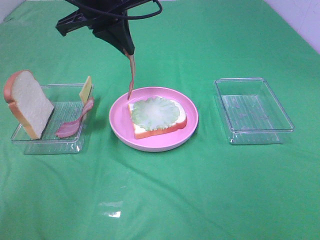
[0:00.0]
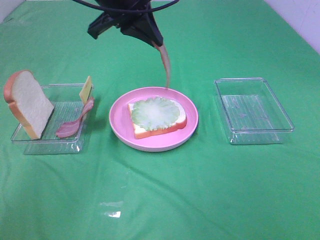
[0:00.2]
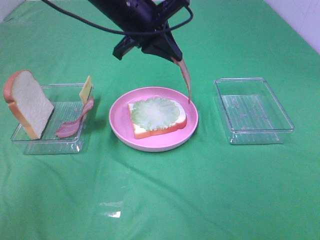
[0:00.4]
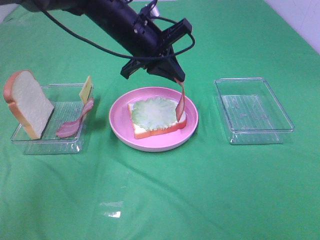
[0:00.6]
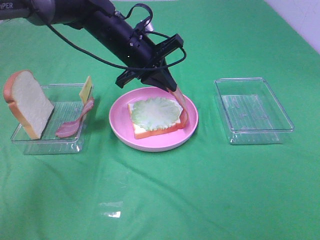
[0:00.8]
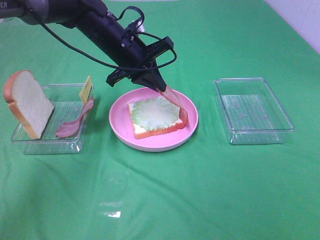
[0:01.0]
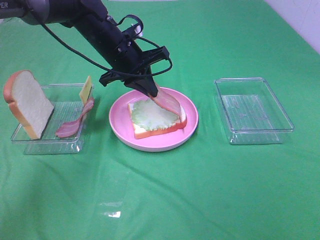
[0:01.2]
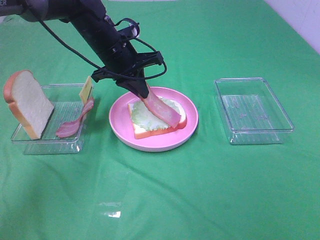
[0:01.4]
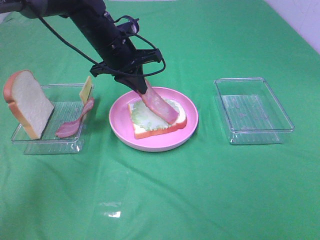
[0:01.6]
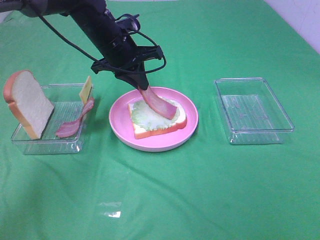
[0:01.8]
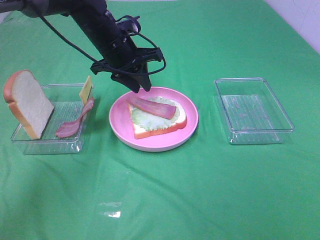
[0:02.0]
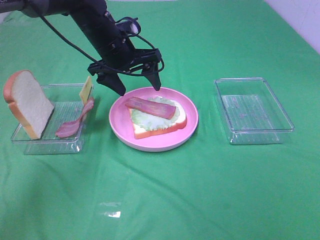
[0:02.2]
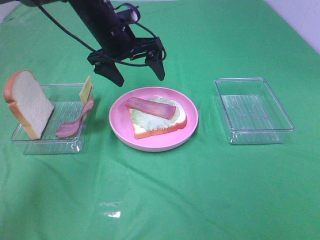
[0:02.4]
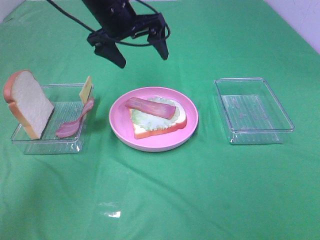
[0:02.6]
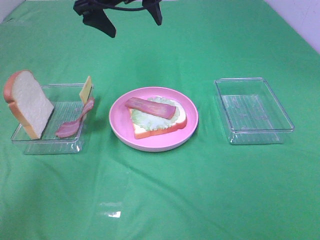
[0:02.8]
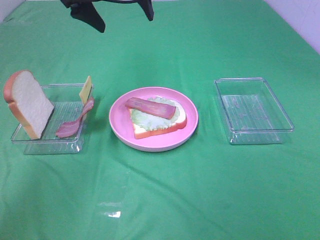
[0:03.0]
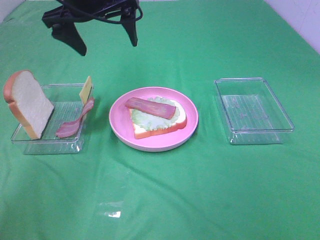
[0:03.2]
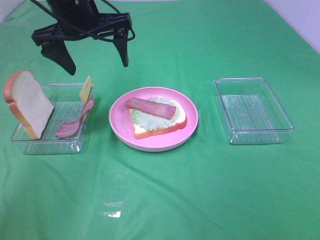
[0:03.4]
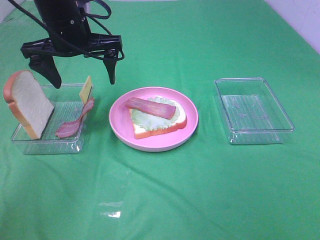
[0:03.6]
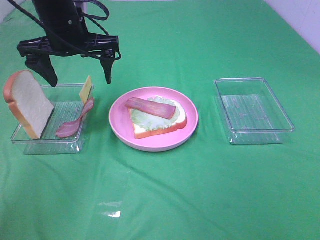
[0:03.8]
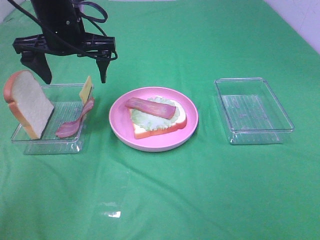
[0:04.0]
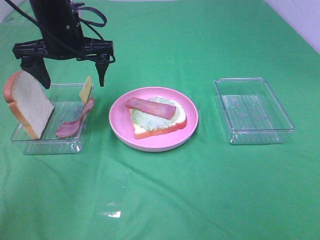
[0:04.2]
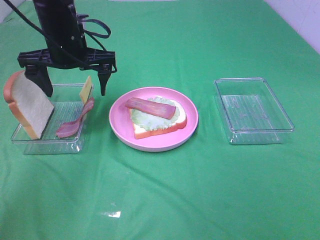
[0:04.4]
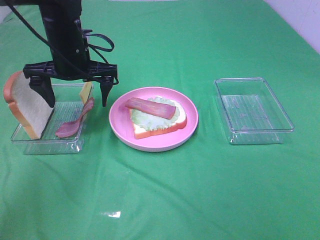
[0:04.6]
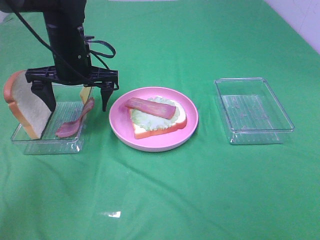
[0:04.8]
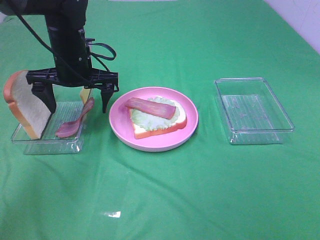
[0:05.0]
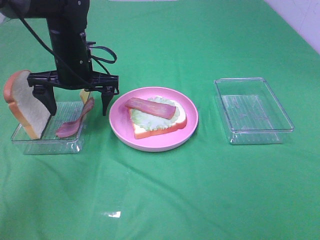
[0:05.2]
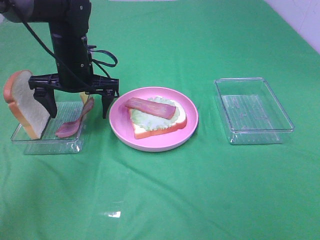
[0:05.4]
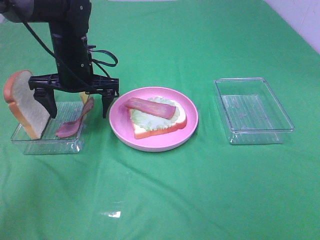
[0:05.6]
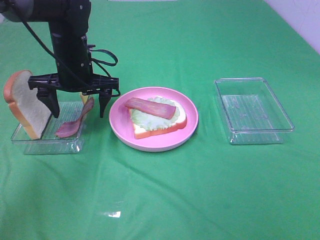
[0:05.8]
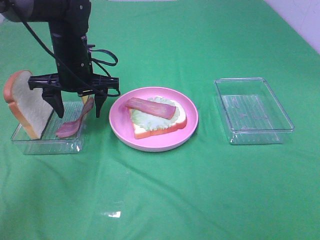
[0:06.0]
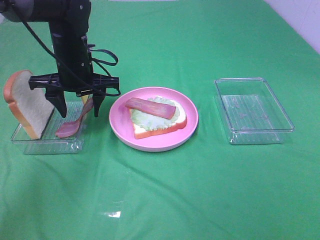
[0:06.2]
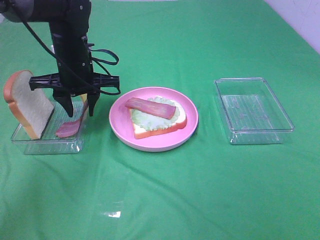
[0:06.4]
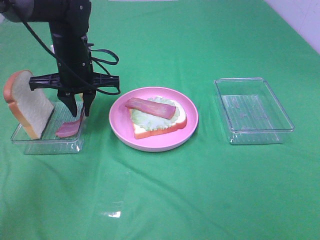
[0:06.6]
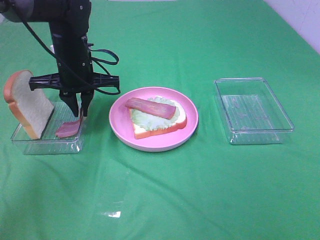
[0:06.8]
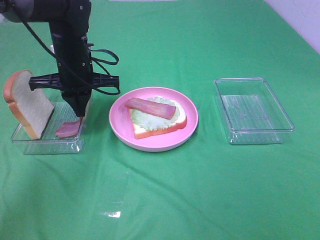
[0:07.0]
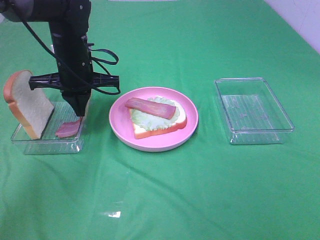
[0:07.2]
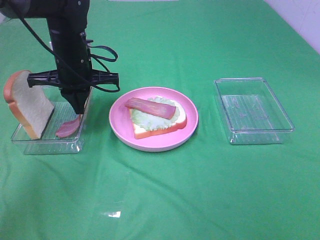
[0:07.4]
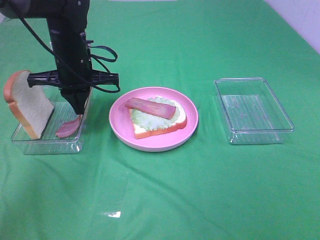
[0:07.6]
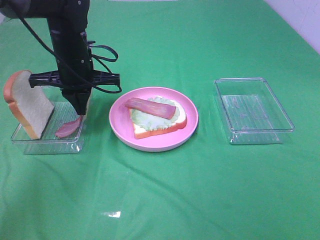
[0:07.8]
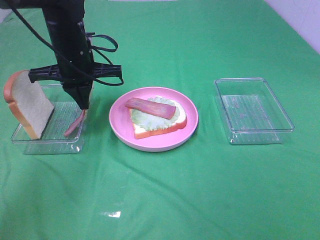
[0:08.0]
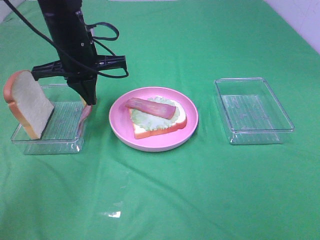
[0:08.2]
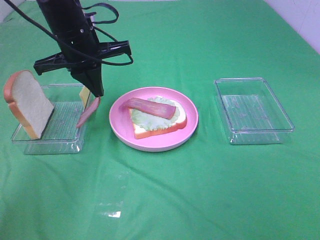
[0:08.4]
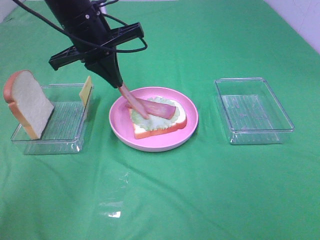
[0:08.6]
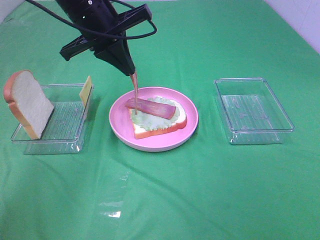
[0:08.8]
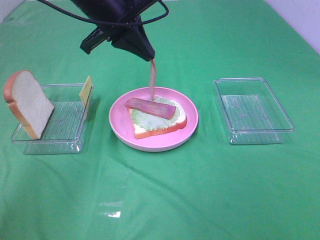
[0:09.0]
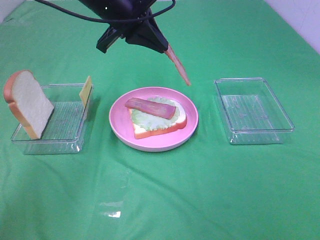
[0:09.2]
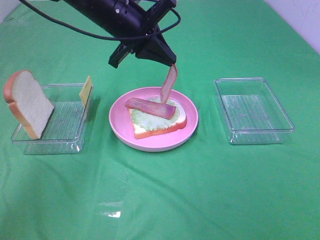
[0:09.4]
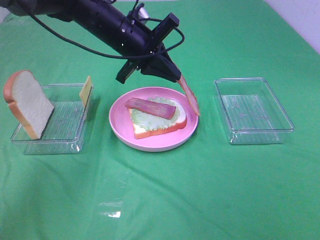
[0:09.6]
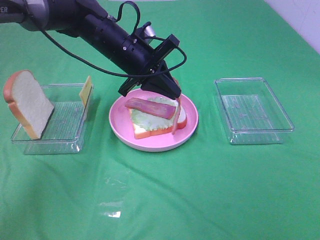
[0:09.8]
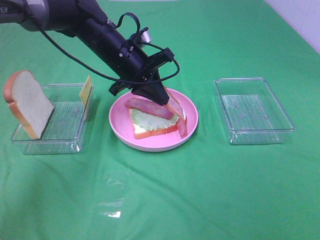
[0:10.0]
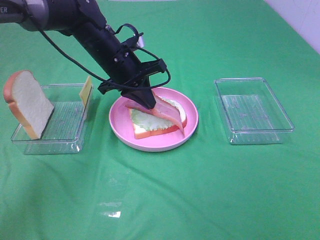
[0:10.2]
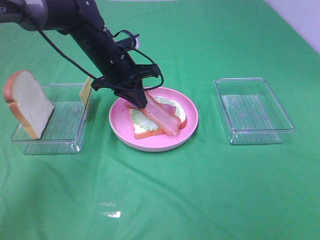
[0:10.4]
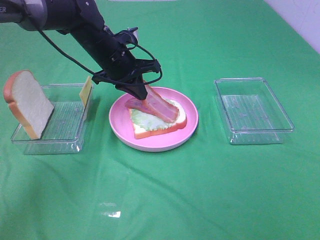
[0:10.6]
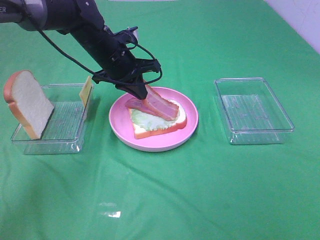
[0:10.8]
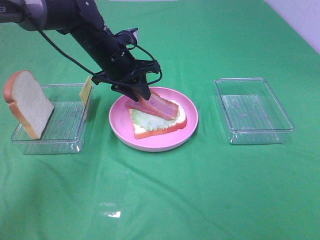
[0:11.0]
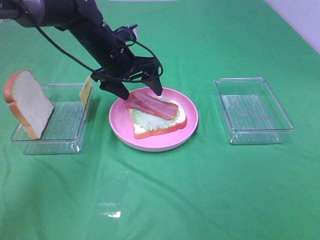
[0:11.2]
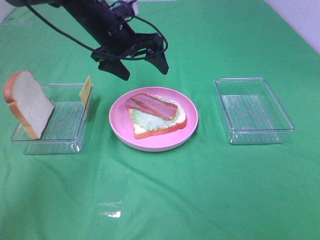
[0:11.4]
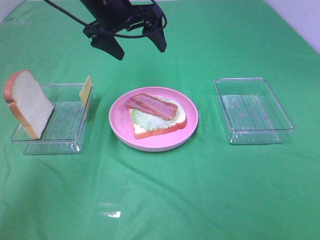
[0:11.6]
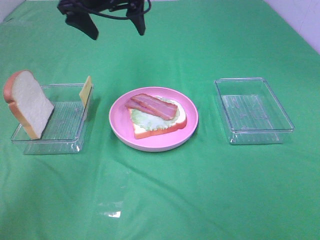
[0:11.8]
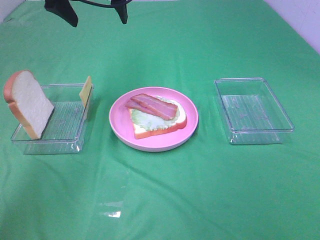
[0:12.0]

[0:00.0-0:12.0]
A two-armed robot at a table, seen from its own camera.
Task of the whole recording: Make sandwiches.
Step, 0:00.0 to 0:02.0: Left hand:place bacon on lettuce slice.
Step, 0:02.2 to 0:07.4: Left hand:grab the bacon.
Step, 0:07.6 to 0:11.2: Left hand:place bacon on bacon.
0:00.0 to 0:01.6: The left gripper is displaced downward and forward by roughly 15 cm.
0:01.6 to 0:03.0: The left gripper heads upward, covering about 15 cm, and opens.
0:03.0 to 0:04.4: The left gripper goes approximately 10 cm downward.
0:04.4 to 0:06.0: The left gripper travels downward by some 5 cm.
0:06.0 to 0:07.6: The left gripper closes its fingers.
0:07.6 to 0:09.0: The left gripper is displaced upward and to the right by about 10 cm.
0:09.0 to 0:10.4: The left gripper is displaced downward by roughly 10 cm.
0:10.4 to 0:12.0: The left gripper goes approximately 15 cm upward, and opens.

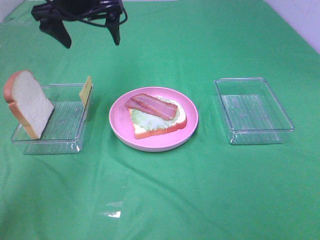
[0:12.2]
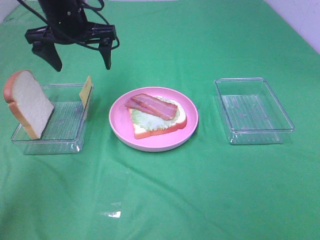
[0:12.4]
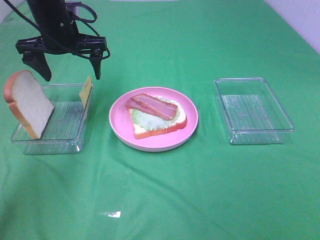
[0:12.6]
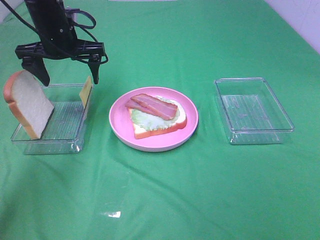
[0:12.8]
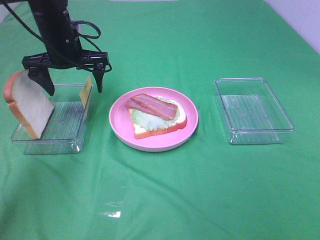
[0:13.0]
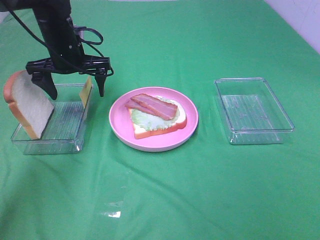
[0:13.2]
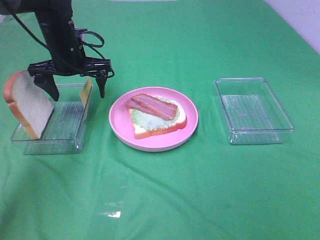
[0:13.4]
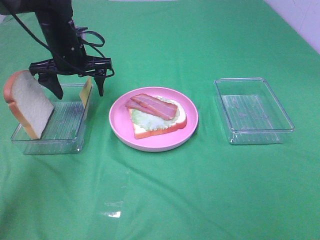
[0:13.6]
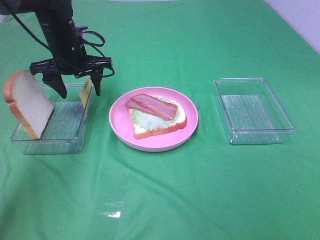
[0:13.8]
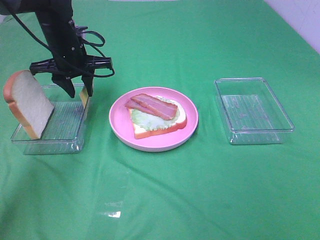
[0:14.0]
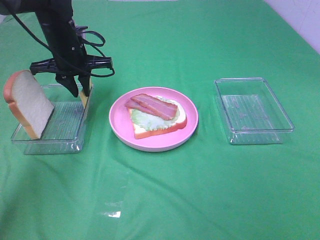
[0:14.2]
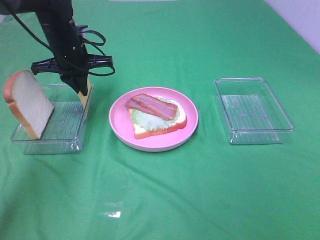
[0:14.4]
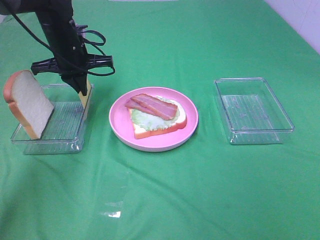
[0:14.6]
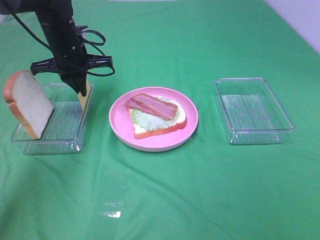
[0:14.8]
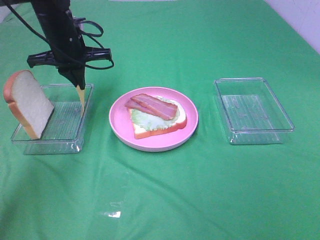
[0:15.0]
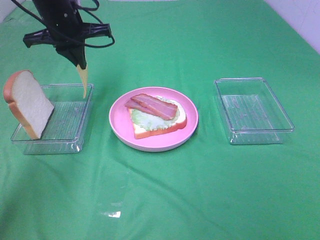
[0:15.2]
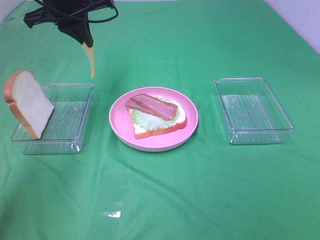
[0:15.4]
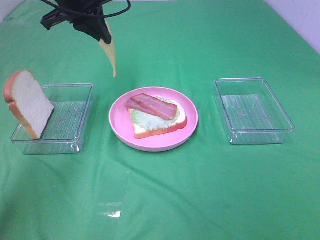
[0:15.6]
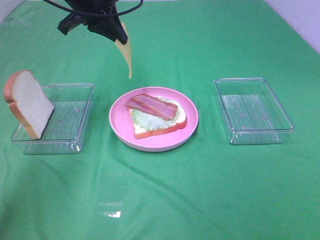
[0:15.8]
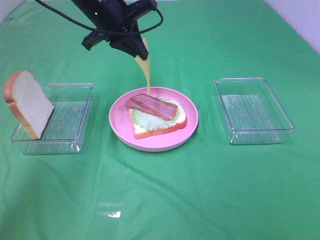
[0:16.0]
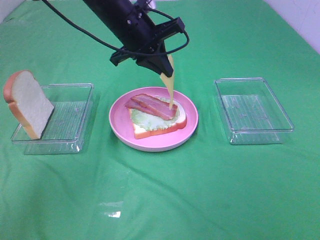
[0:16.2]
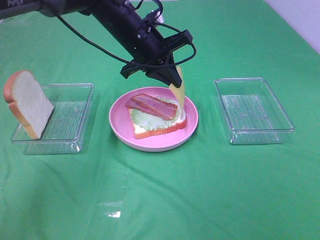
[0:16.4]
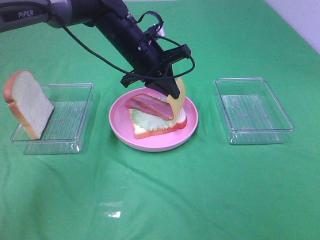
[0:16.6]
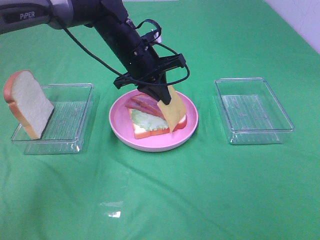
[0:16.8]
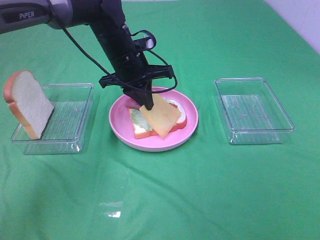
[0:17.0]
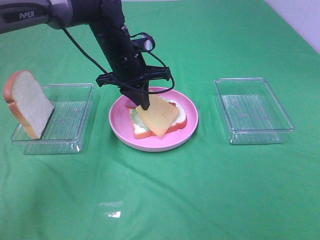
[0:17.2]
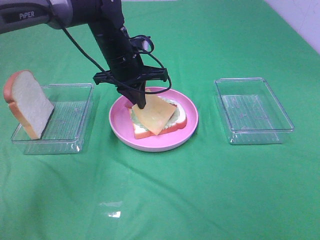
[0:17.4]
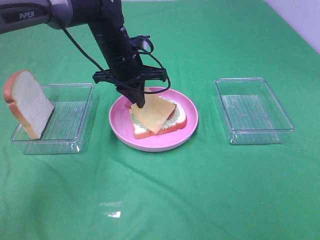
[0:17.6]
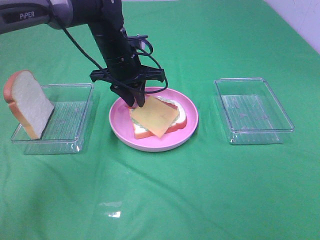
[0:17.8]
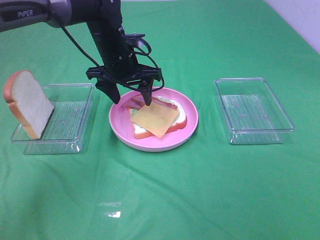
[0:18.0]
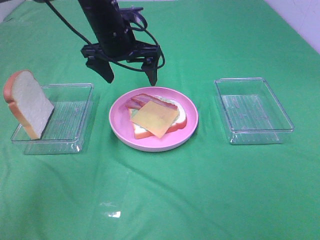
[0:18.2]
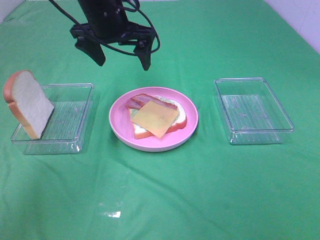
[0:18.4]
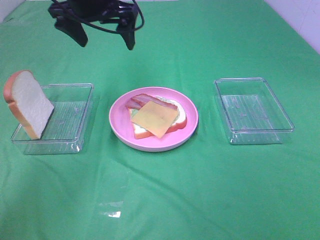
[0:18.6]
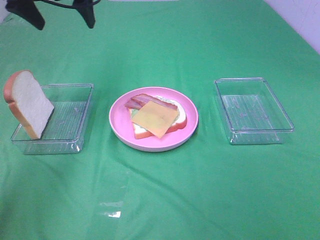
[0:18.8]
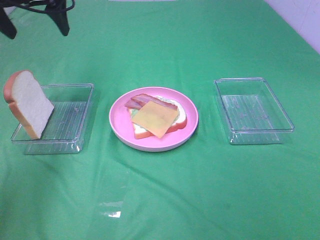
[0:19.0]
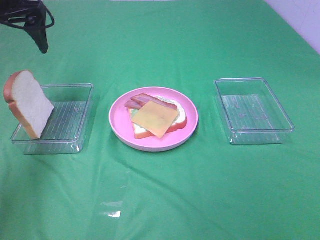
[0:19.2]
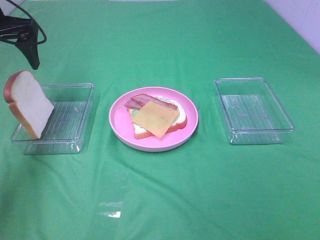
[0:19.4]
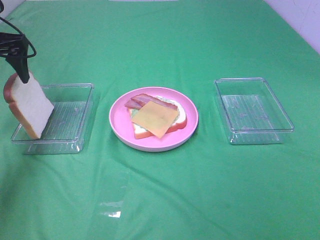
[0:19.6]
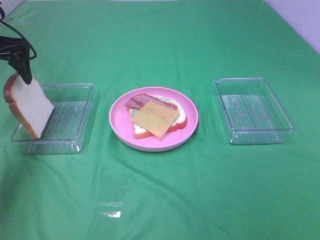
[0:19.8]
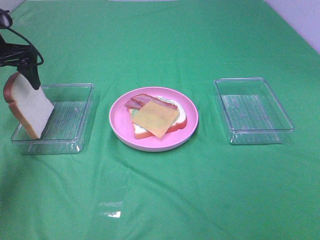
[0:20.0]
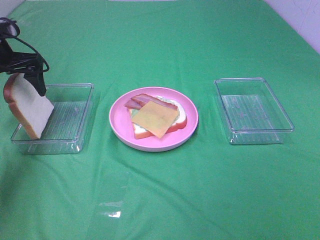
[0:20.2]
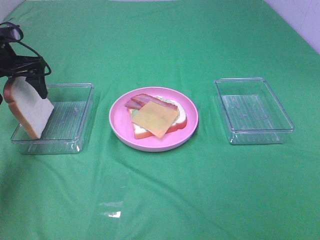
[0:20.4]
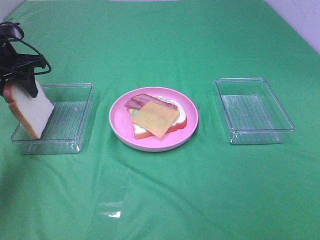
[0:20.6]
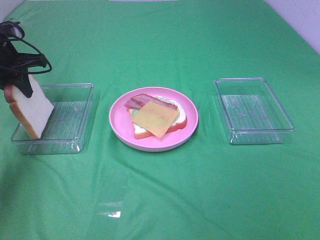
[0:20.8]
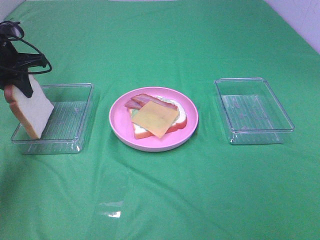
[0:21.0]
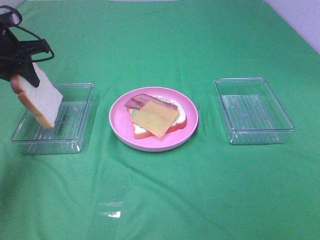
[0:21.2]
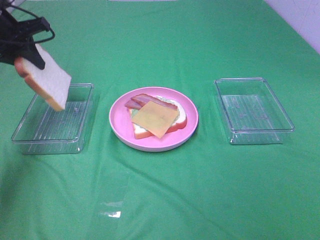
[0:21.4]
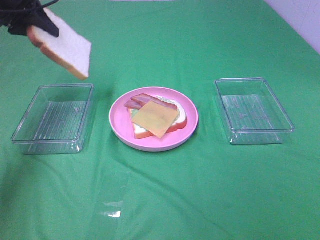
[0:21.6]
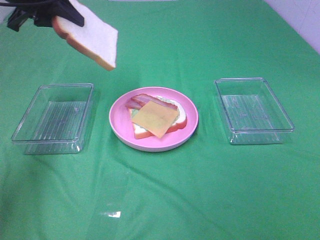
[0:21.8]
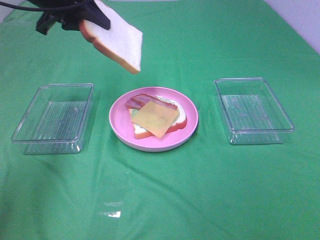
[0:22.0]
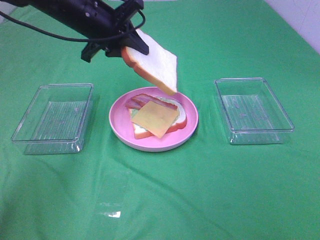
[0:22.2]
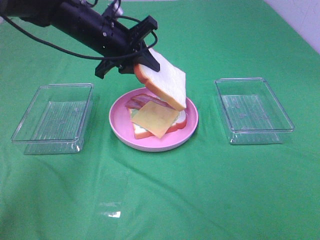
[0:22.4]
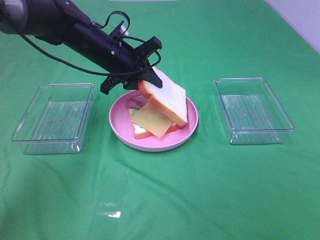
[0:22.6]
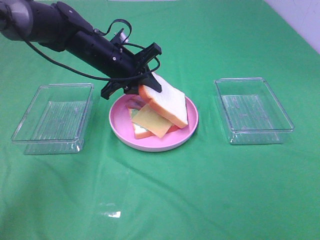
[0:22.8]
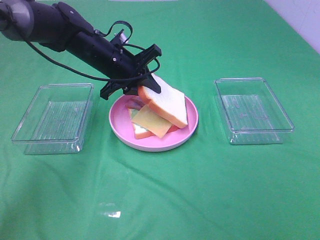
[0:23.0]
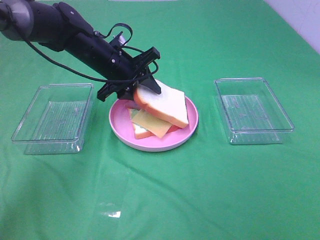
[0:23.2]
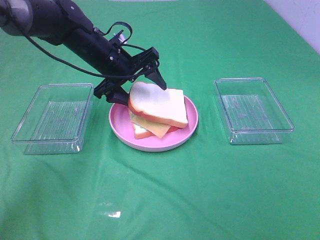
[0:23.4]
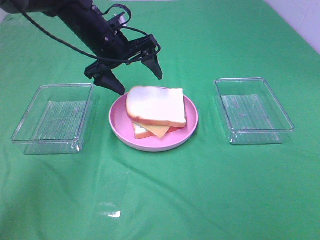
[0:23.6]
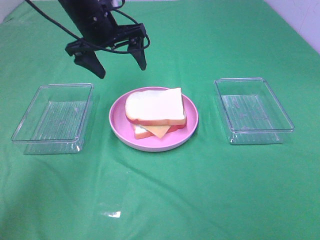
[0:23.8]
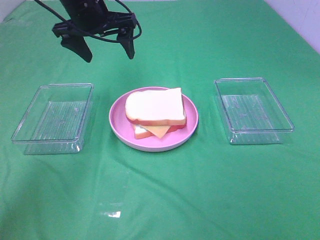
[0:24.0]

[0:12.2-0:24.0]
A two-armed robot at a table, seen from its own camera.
Task of the whole recording: Make sandwiches.
Step, 0:12.2 to 0:14.4: Left hand:grab the cheese slice.
Step, 0:14.6 to 0:17.8: Left hand:place the cheese slice on top of the bacon.
Step, 0:18.0 to 0:20.8: Left hand:grab the bread slice.
Step, 0:21.0 to 0:23.6: Left hand:place the bread slice on the cheese slice.
0:12.2 to 0:13.6: The left gripper goes about 10 cm downward.
0:13.6 to 0:15.2: The left gripper goes roughly 5 cm upward, and closes.
0:15.2 to 0:16.6: The left gripper moves to the right and downward, approximately 15 cm.
0:16.6 to 0:18.2: The left gripper ends up about 5 cm from where it was, and opens its fingers.
0:18.2 to 0:19.6: The left gripper is displaced to the left by about 25 cm.
0:19.6 to 0:21.0: The left gripper goes approximately 5 cm downward, and closes up.
0:21.0 to 0:22.6: The left gripper is displaced to the right by about 20 cm.
0:22.6 to 0:24.0: The left gripper moves upward, about 10 cm, and opens its fingers.
